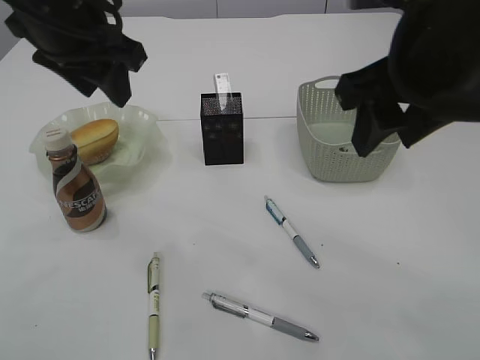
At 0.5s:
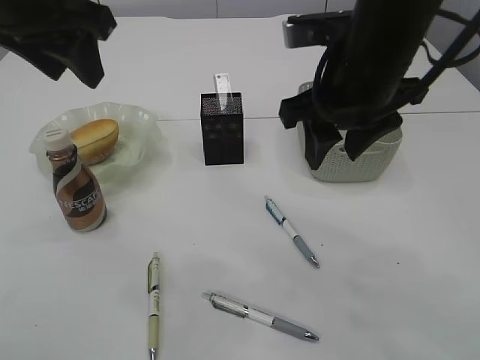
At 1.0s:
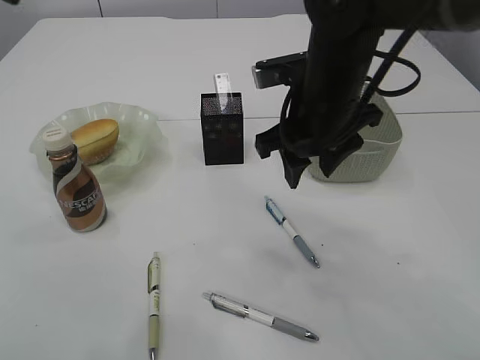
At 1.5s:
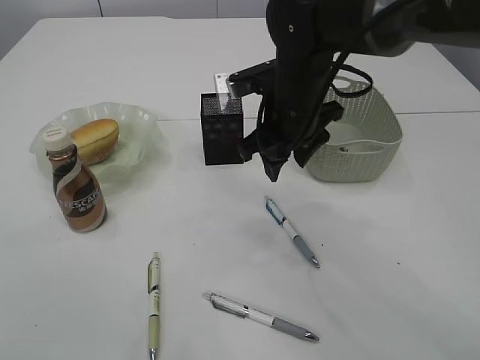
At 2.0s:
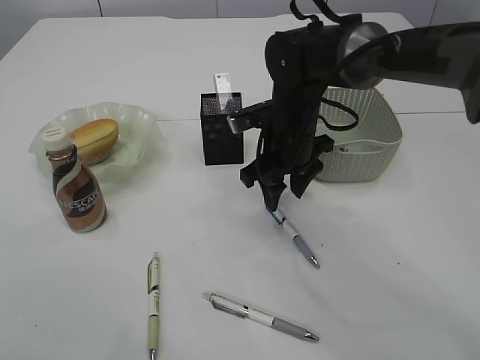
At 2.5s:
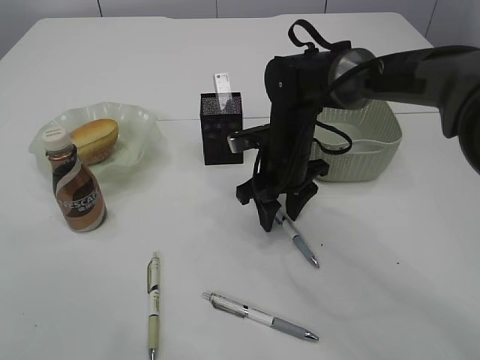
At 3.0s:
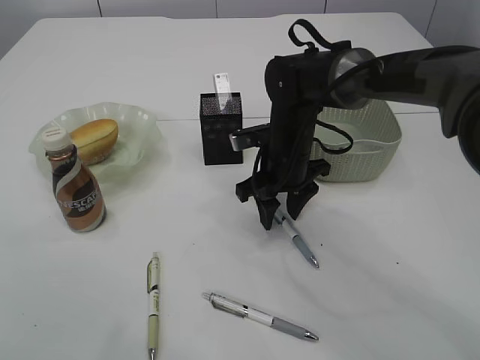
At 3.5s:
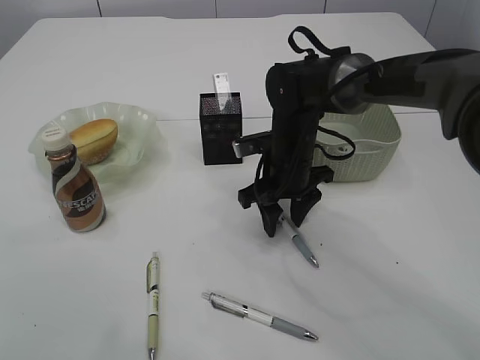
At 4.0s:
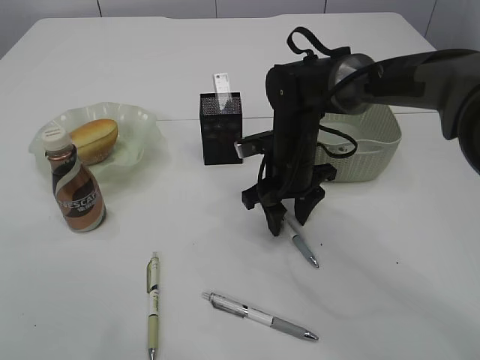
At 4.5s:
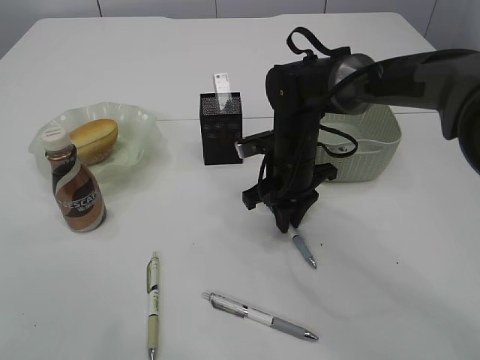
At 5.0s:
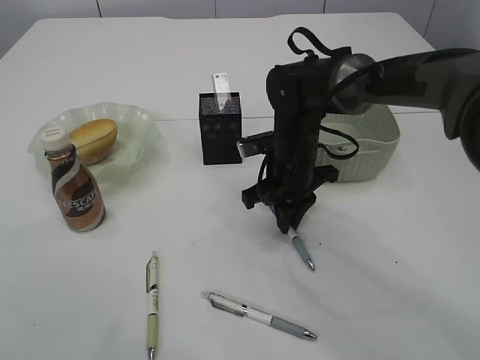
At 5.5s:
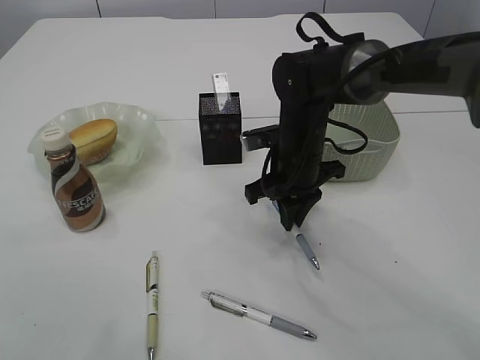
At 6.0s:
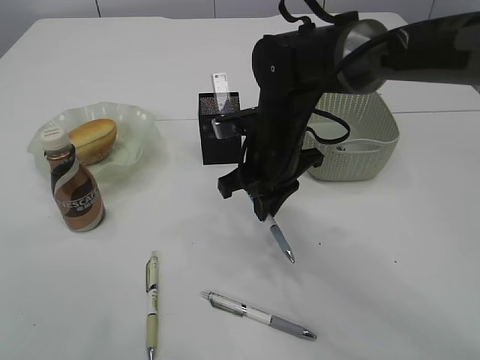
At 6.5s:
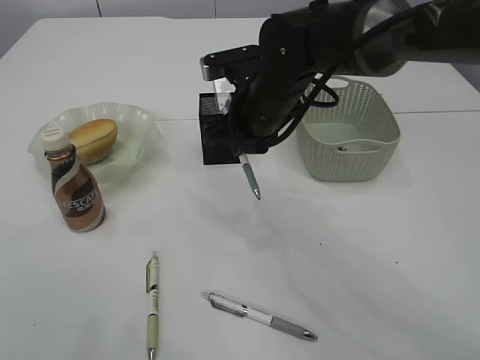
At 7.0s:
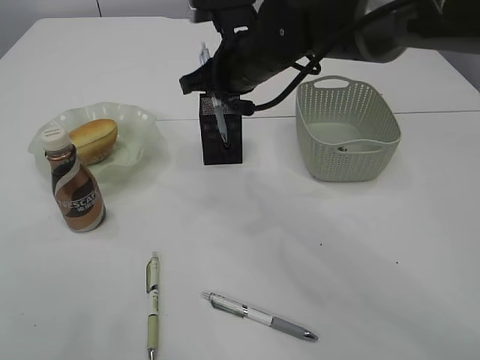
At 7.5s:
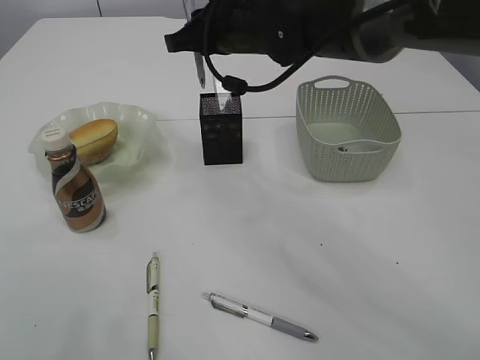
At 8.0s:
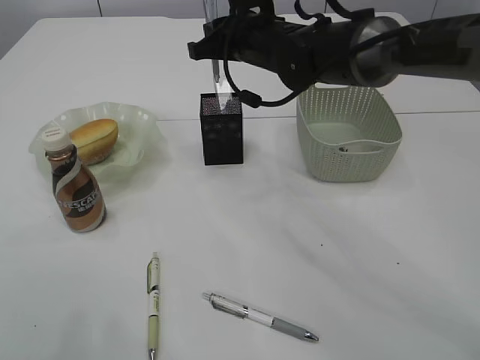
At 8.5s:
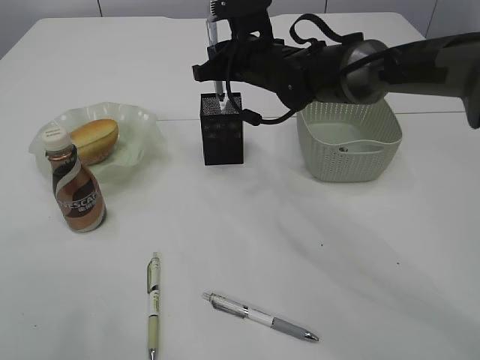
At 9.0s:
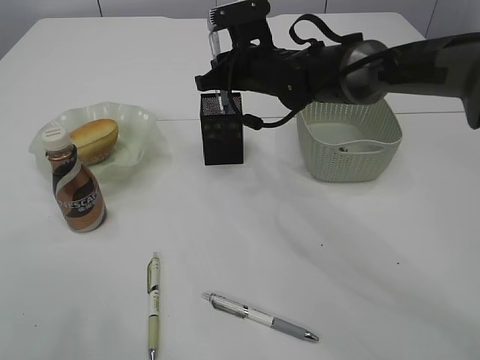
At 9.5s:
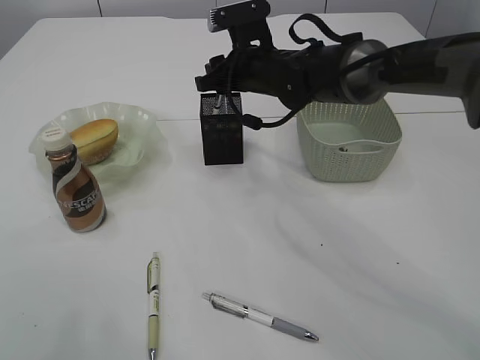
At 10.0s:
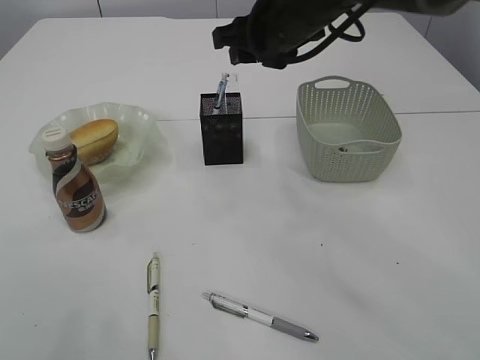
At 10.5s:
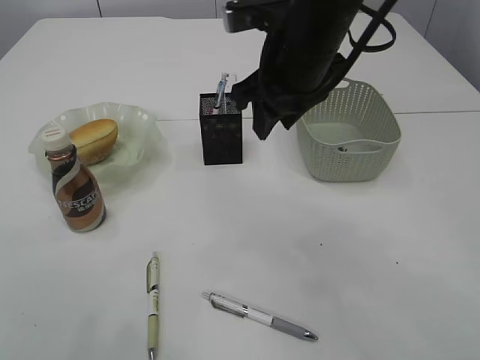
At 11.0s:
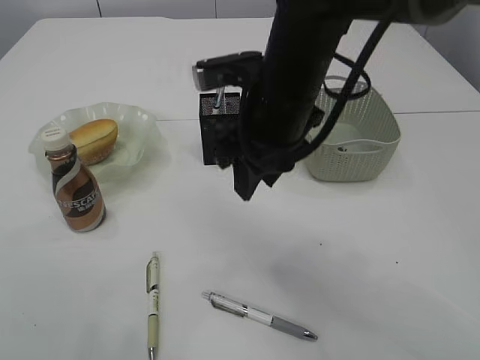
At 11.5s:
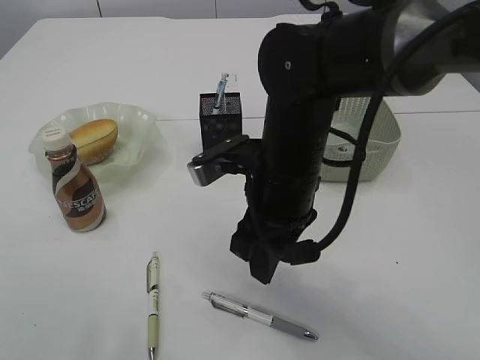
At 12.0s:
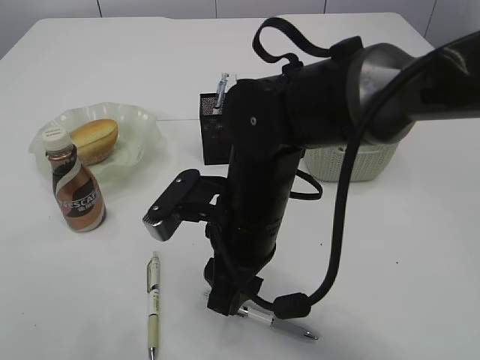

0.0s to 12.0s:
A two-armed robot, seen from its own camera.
Step, 0.0s to 6.0s: Pick up the pen with right arm.
Step, 6.5s to 10.0s: Place the pen into the pen holder.
0.0s to 2.0s: The right gripper travels downward, forward and to the left by approximately 25 cm; the left gripper shifts approximately 15 cm backward, upward and to the left.
2.0s to 4.0s: The grippers stay close to where they were, moving slightly.
4.0s to 6.0s: The right gripper moves roughly 5 cm, and closes.
6.0s to 8.0s: The right gripper travels forward and upward by roughly 10 cm.
8.0s to 10.0s: The right gripper shifts by roughly 5 cm, and opens up.
10.0s to 12.0s: The right gripper is displaced backward and downward by roughly 20 cm.

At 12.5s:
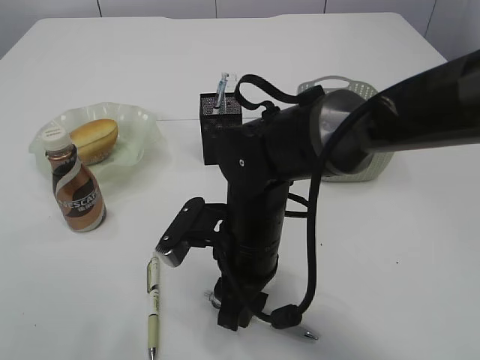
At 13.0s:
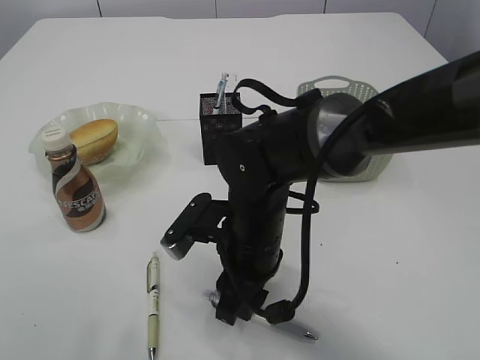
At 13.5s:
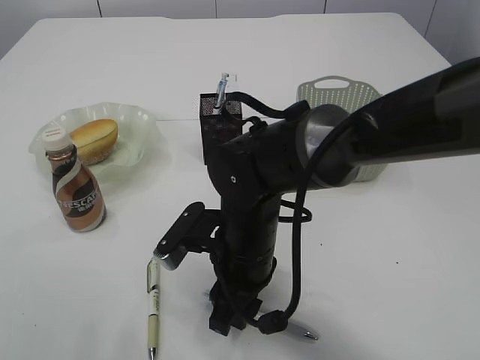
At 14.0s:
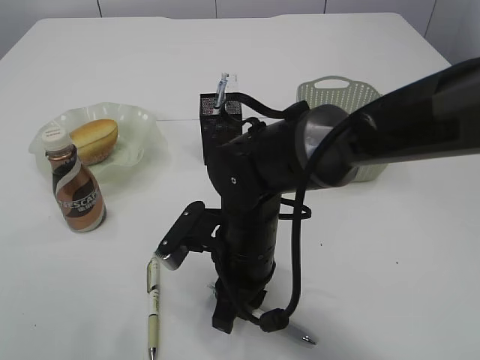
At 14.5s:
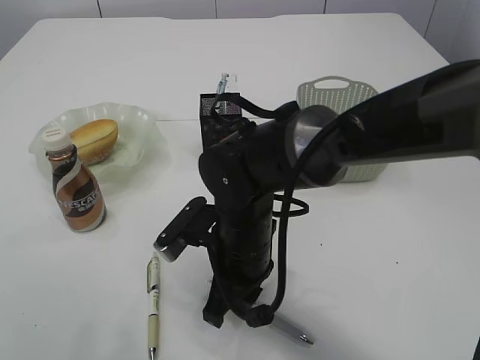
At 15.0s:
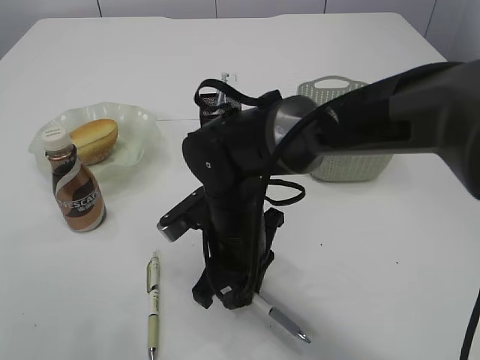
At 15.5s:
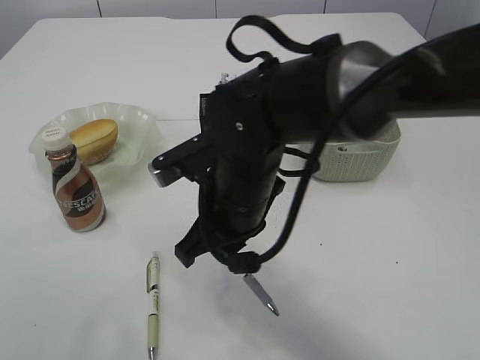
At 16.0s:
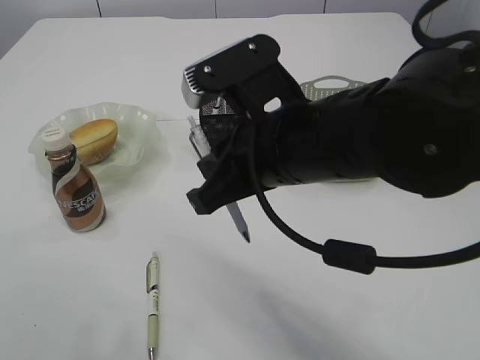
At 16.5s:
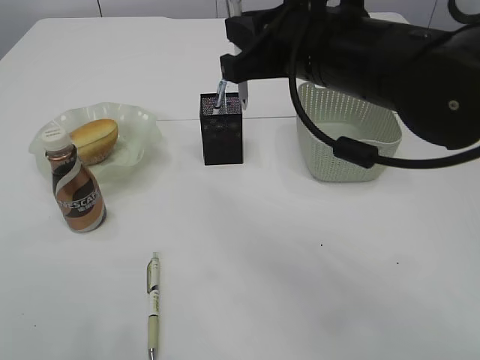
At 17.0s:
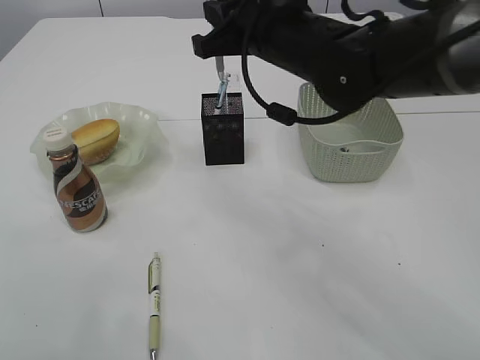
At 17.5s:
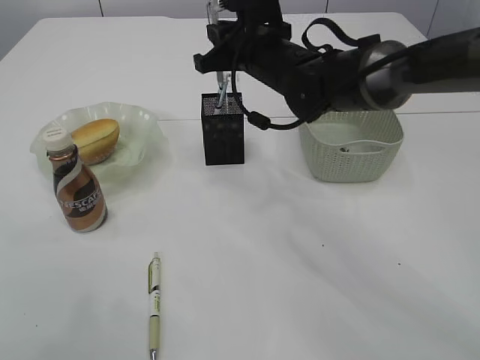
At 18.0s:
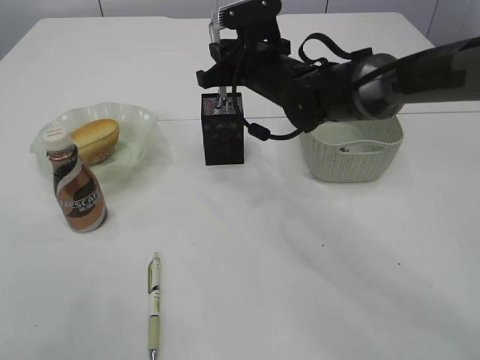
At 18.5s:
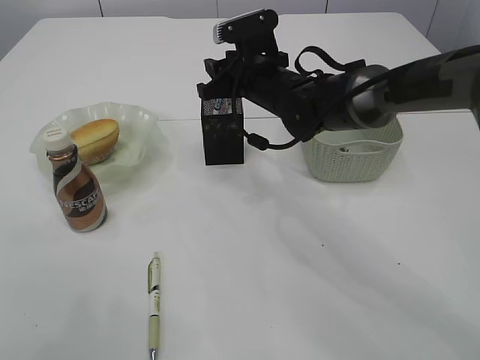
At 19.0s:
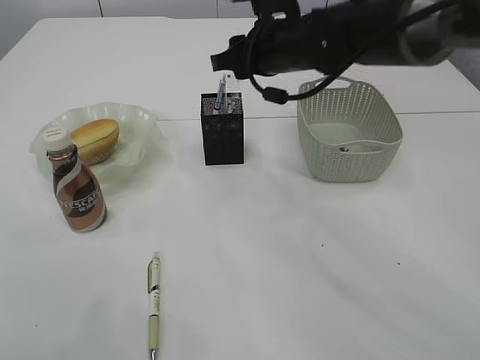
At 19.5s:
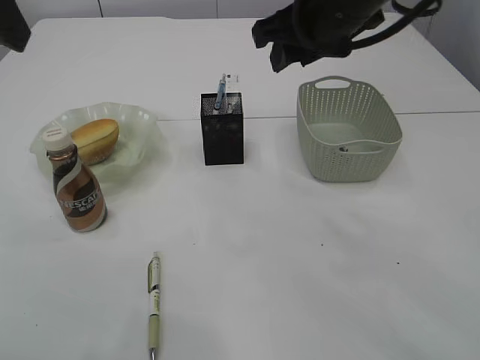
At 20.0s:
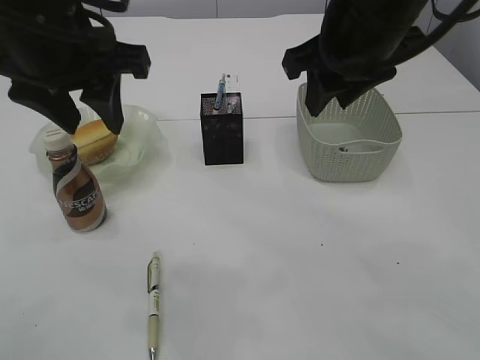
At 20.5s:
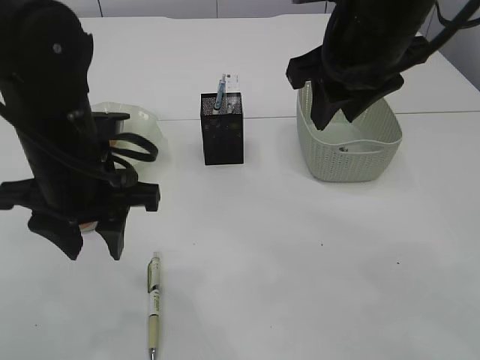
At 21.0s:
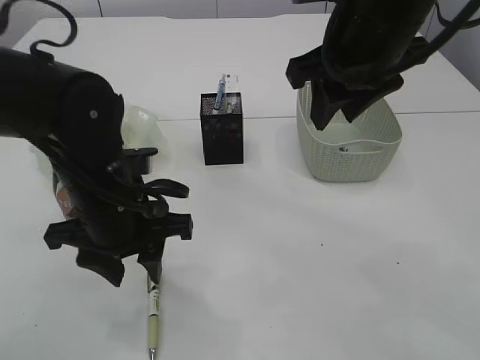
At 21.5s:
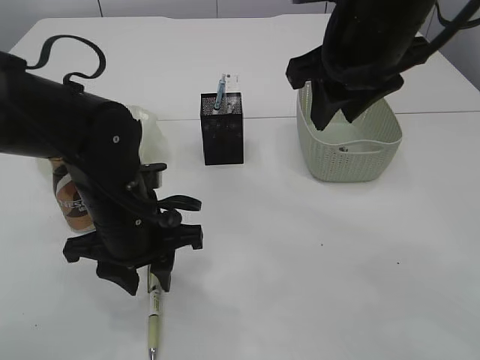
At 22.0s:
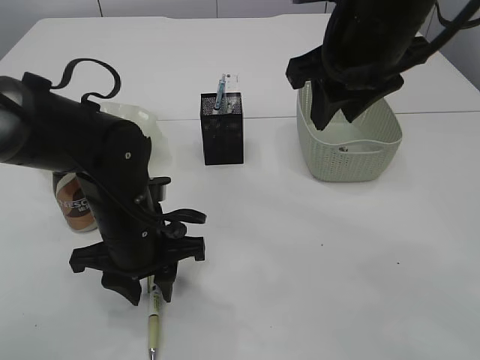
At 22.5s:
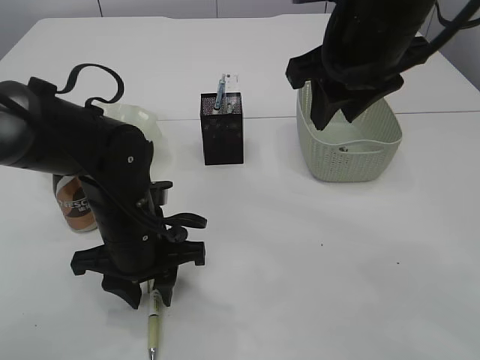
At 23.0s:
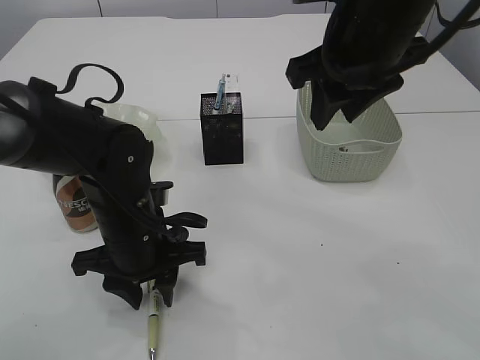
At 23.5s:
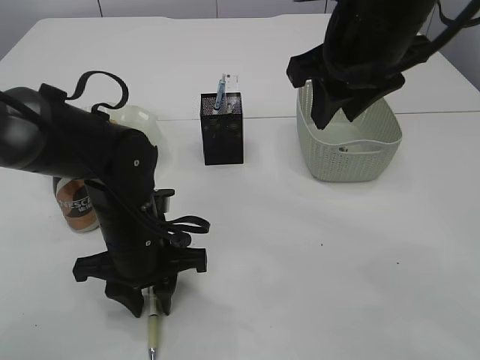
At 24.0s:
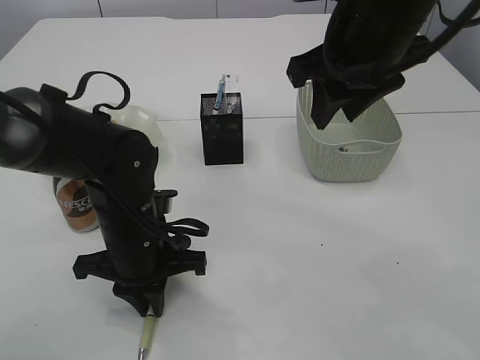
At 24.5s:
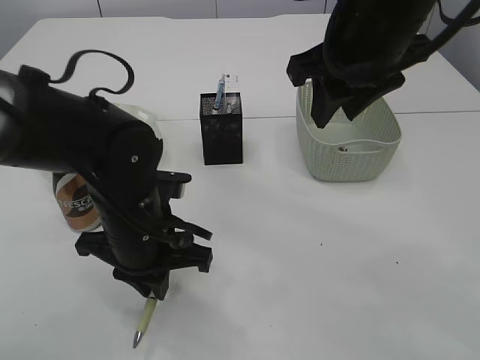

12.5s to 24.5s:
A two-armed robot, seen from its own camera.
Step, 12.5s to 15.5s: Pick up the pen with right arm.
Step, 16.0s to 19.0s: Place the pen into the pen holder.
12.5s to 14.5s: The right gripper closes.
14.5s to 16.5s: The right gripper moves upward and to the right, approximately 20 cm.
16.5s to 18.5s: The right gripper shifts roughly 20 cm forward and downward, and opens up.
18.5s to 20.5s: The left gripper travels downward and to the right by roughly 20 cm. The right gripper goes about 20 cm backward, upward and to the right.
20.5s to 22.5s: The left gripper is displaced downward by roughly 10 cm.
22.5s to 24.5s: The left gripper closes.

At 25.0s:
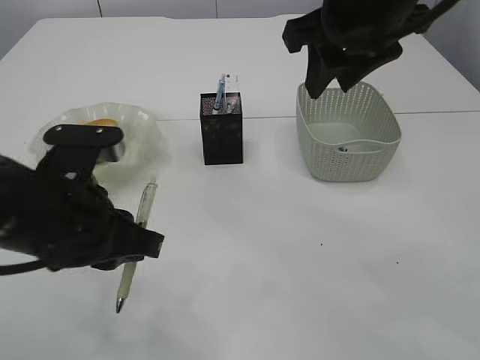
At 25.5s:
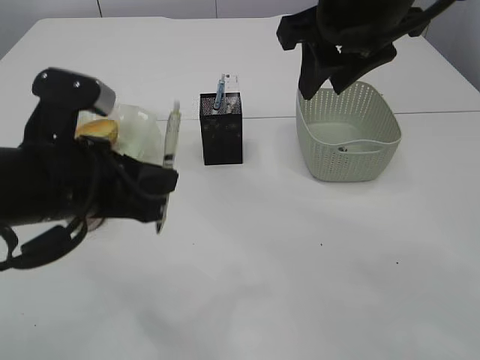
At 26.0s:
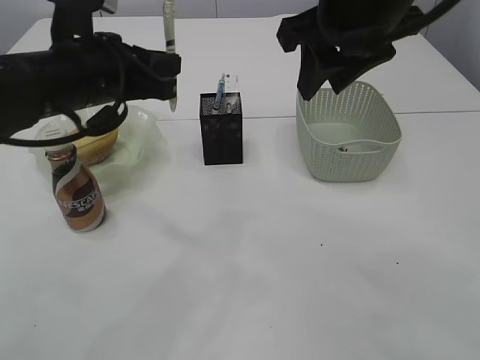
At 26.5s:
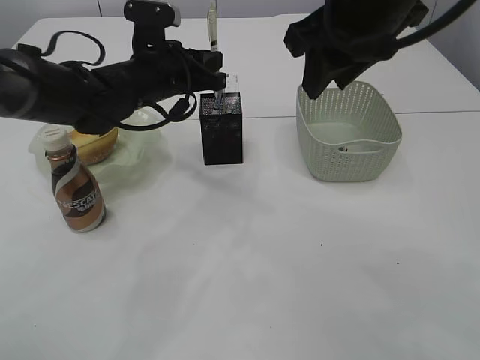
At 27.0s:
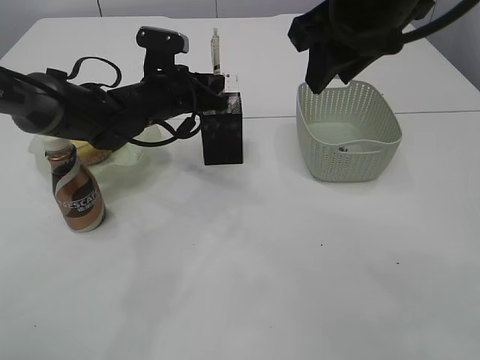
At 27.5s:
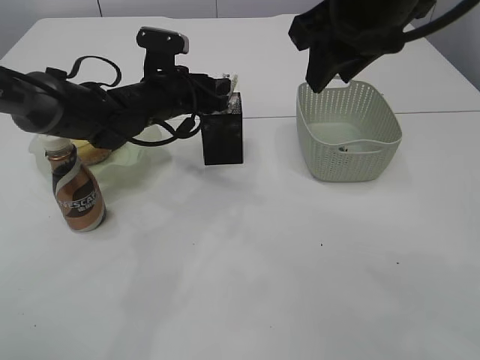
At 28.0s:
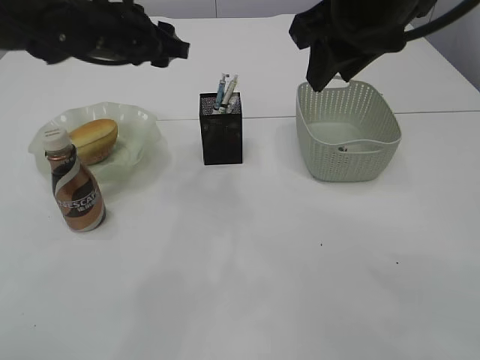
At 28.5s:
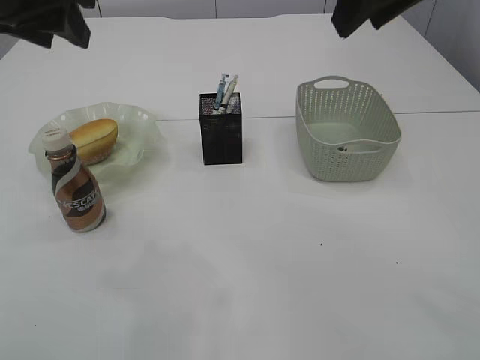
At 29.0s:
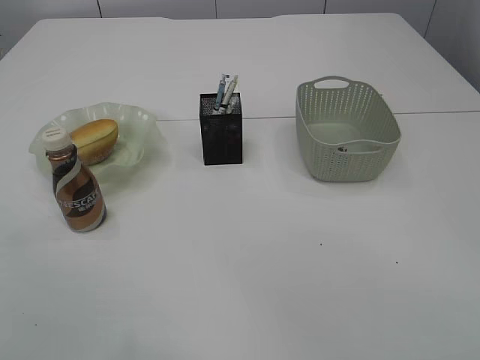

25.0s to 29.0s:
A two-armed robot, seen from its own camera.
Step, 25.0s to 28.0s: Place the pen into the pen holder.
25.0s to 27.0s: The left gripper travels forward by roughly 25 cm.
27.0s to 29.0s: The left gripper heads upward, backward and to the left, covering approximately 35 cm, and opens its fingers, while the right gripper travels backward, upward and to the right by about 15 cm.
